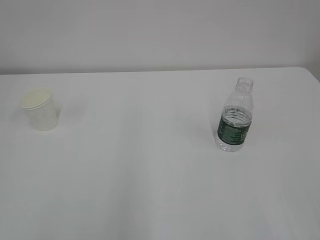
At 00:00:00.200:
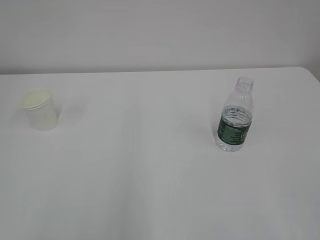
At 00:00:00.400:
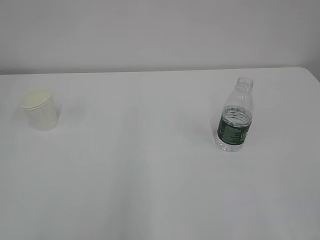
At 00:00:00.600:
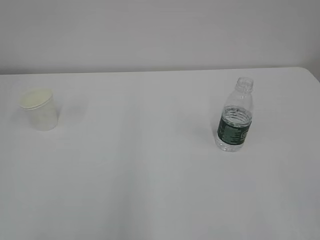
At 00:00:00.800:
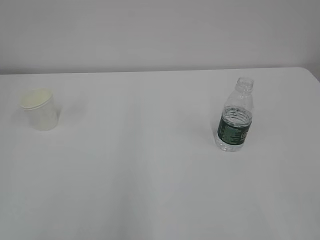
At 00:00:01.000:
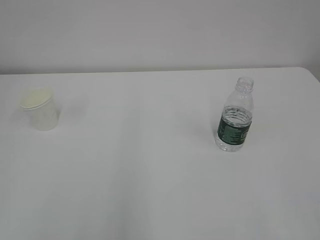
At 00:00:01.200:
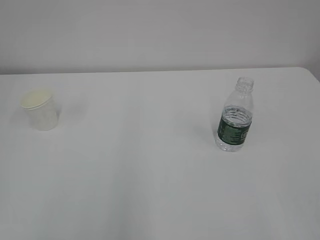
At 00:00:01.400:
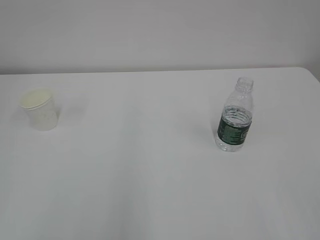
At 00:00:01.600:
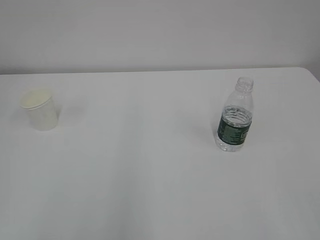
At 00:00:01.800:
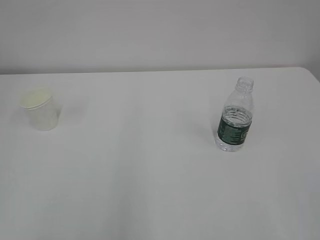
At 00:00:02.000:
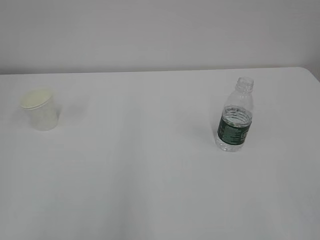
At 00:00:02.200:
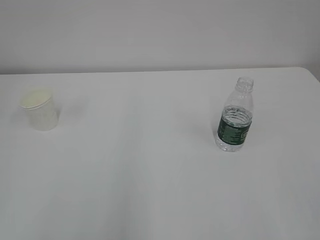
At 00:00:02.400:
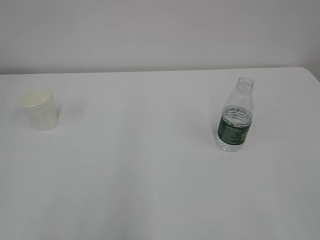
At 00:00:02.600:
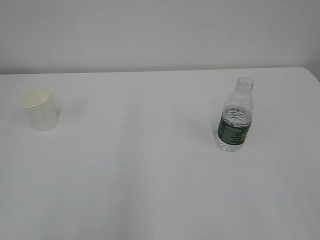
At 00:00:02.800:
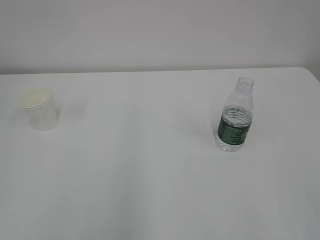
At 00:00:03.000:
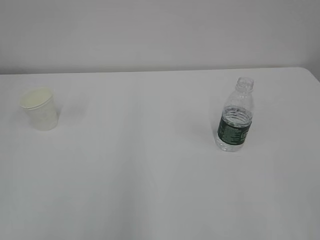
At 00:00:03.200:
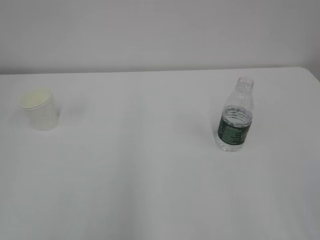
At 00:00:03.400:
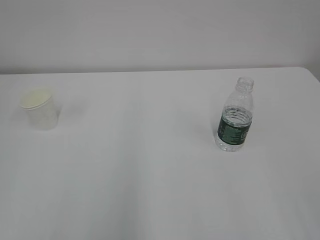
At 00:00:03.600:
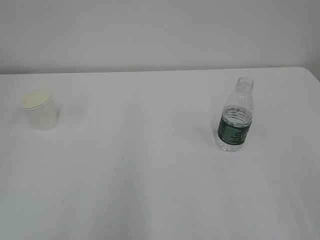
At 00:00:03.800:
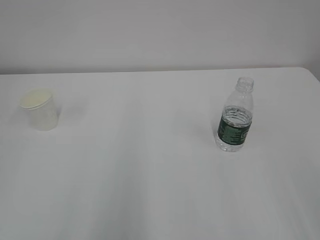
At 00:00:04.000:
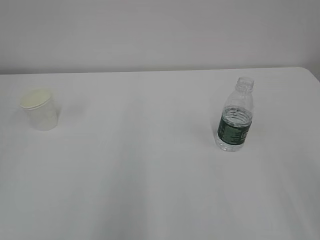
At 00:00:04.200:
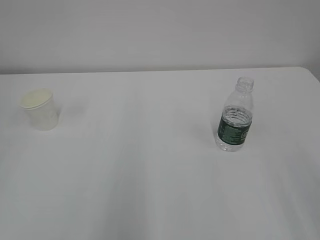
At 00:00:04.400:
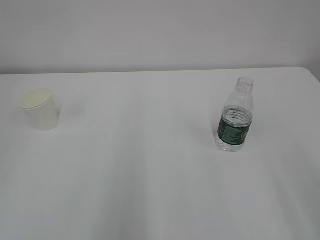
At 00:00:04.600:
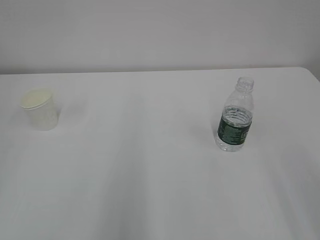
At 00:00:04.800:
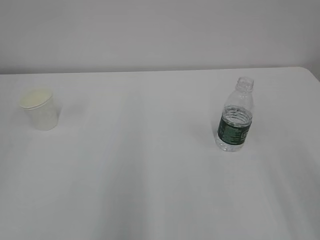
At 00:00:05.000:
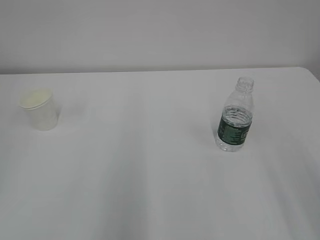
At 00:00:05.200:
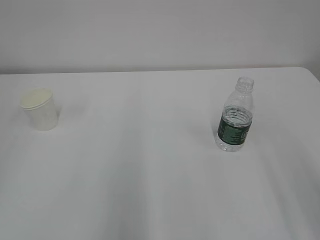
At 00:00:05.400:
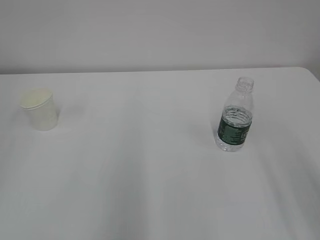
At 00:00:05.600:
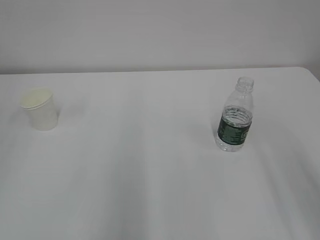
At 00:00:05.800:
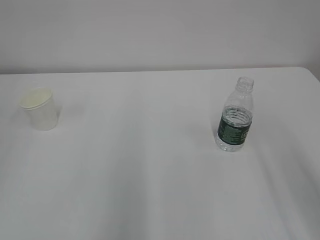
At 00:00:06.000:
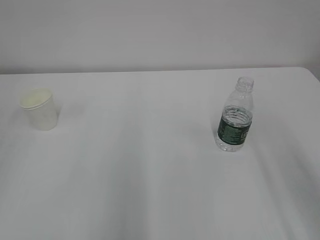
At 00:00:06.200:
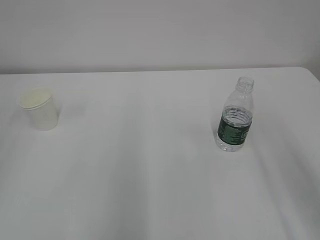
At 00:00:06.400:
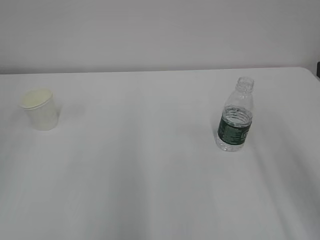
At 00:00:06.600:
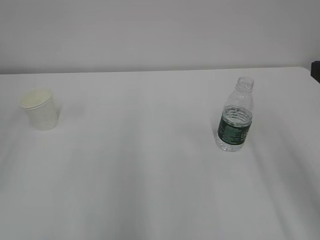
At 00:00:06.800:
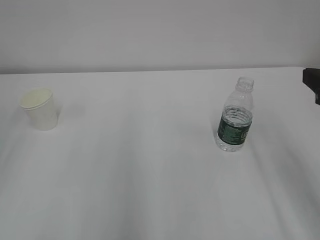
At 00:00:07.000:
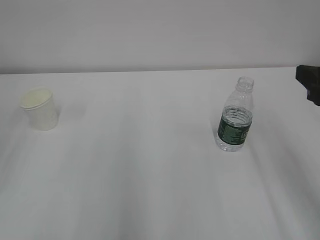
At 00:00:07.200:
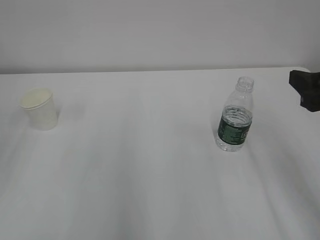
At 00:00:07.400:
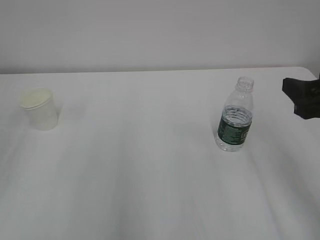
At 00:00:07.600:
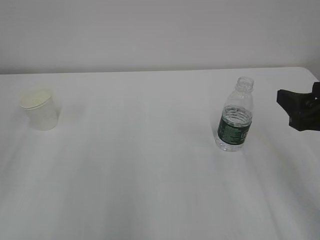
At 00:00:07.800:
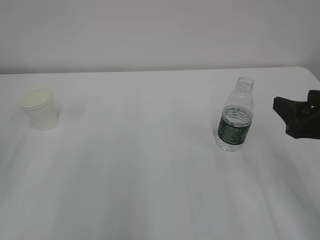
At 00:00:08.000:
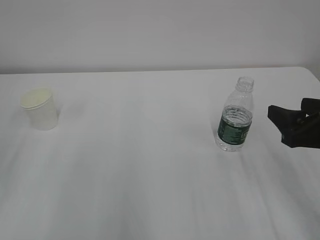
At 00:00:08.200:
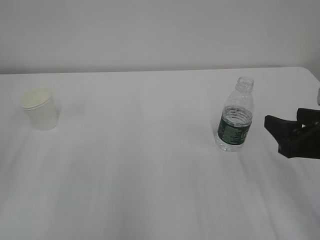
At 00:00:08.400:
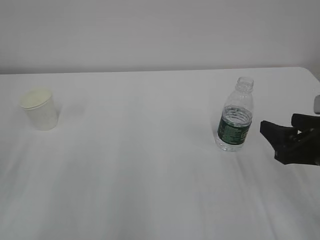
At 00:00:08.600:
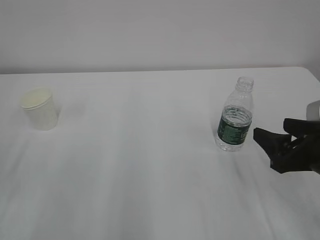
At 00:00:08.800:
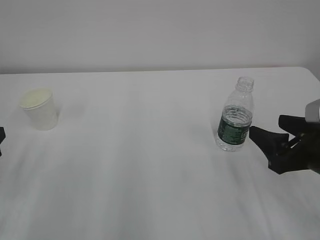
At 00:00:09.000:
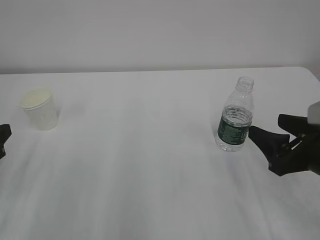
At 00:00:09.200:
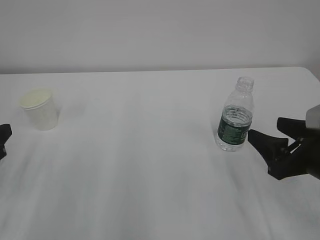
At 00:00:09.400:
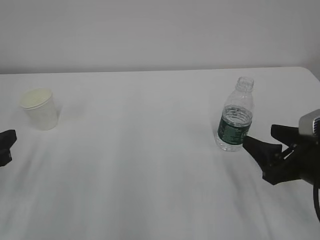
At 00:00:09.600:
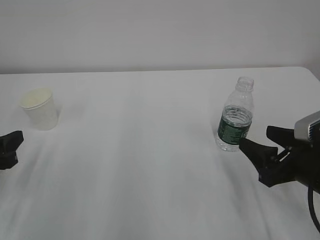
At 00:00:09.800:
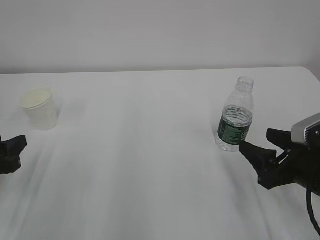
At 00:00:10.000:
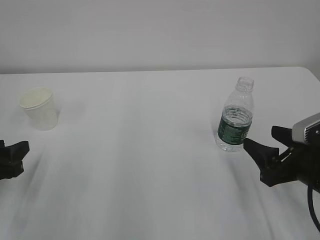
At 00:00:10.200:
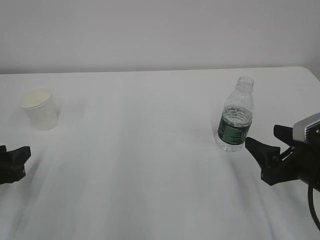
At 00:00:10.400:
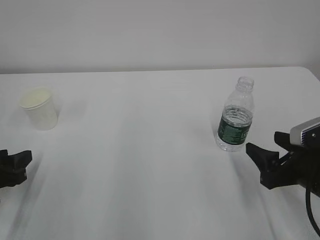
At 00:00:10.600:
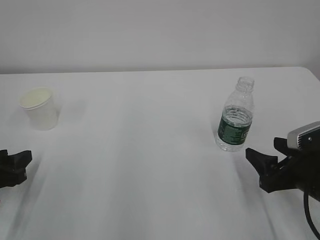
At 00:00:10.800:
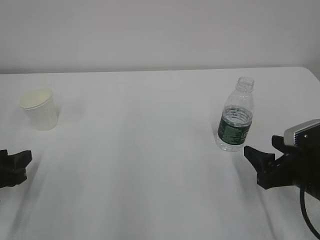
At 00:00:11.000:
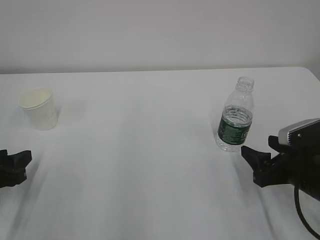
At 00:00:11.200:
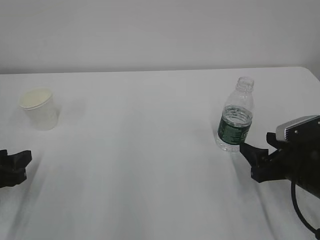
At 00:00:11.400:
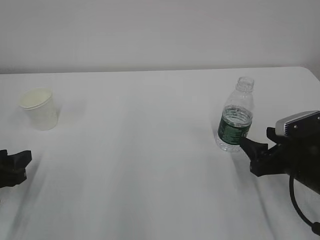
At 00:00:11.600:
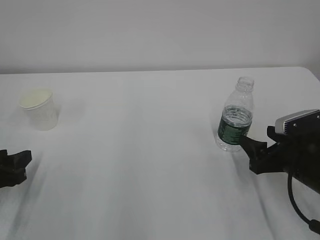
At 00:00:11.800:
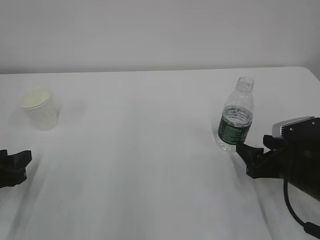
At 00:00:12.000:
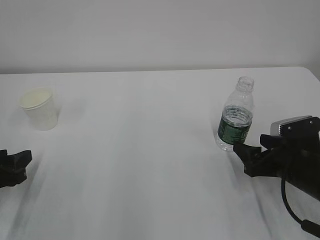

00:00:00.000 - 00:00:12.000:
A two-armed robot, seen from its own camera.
00:00:06.000 - 00:00:07.600: The right gripper heads downward and forward, covering about 10 cm.
00:00:07.600 - 00:00:09.000: The right gripper travels downward by some 5 cm.
00:00:09.000 - 00:00:10.400: The left gripper is displaced downward by roughly 5 cm.
00:00:10.400 - 00:00:12.000: The right gripper moves roughly 5 cm.

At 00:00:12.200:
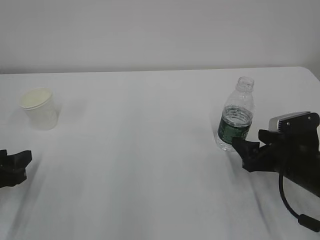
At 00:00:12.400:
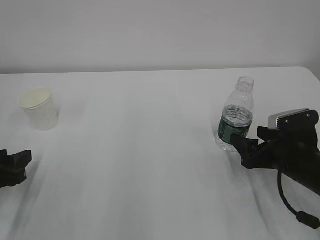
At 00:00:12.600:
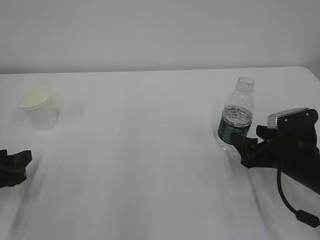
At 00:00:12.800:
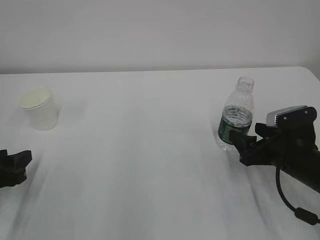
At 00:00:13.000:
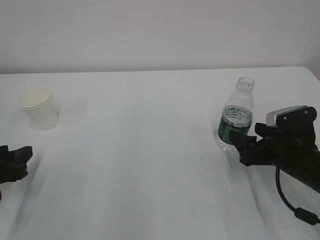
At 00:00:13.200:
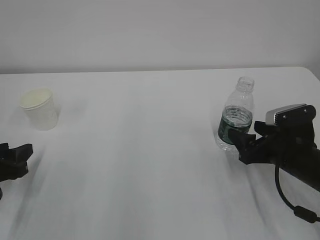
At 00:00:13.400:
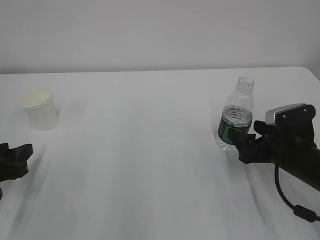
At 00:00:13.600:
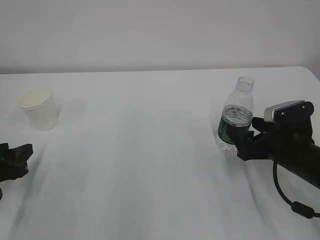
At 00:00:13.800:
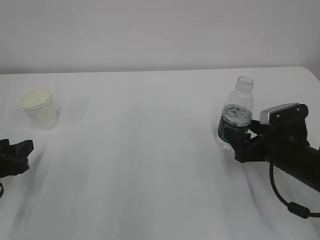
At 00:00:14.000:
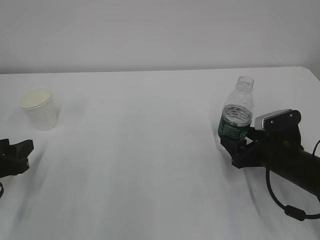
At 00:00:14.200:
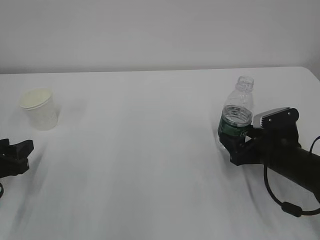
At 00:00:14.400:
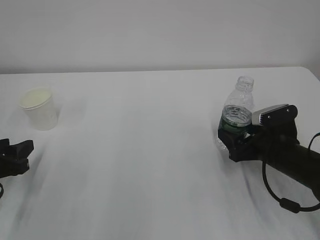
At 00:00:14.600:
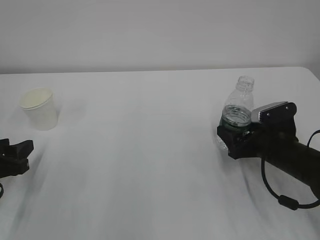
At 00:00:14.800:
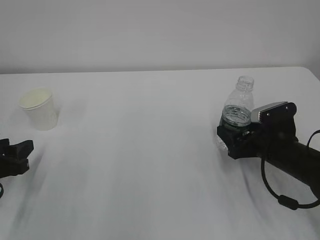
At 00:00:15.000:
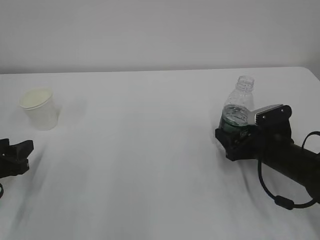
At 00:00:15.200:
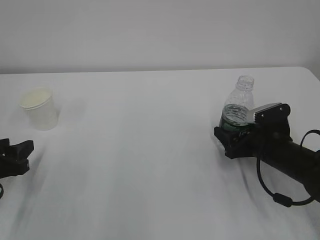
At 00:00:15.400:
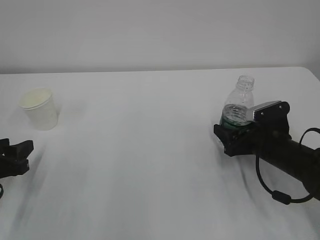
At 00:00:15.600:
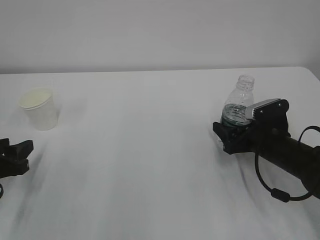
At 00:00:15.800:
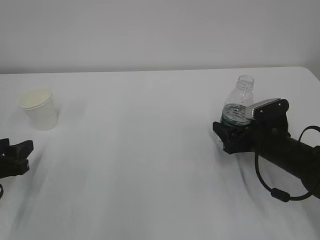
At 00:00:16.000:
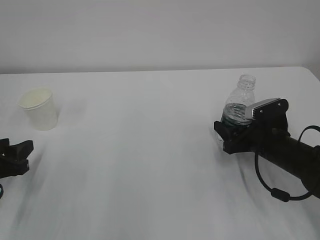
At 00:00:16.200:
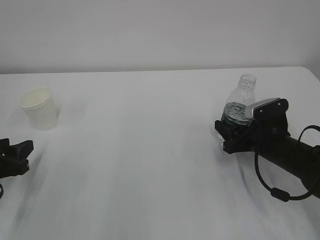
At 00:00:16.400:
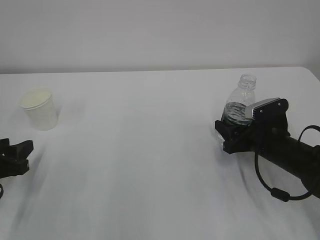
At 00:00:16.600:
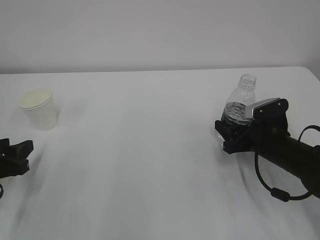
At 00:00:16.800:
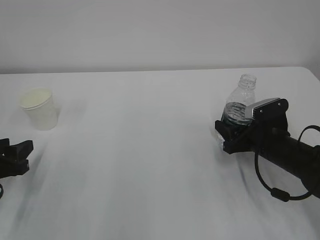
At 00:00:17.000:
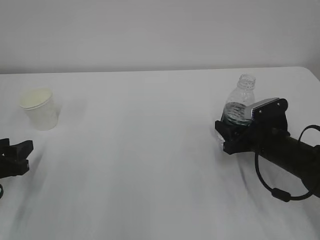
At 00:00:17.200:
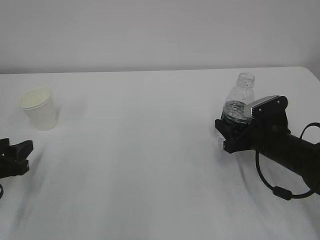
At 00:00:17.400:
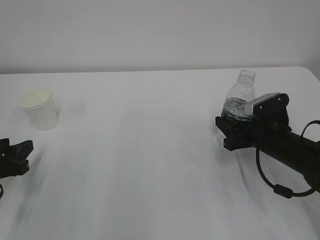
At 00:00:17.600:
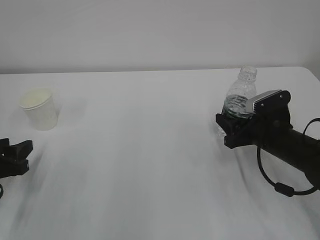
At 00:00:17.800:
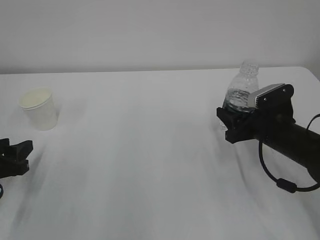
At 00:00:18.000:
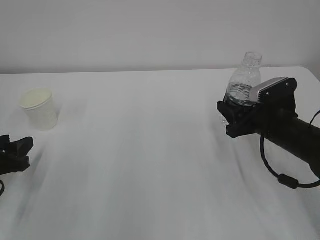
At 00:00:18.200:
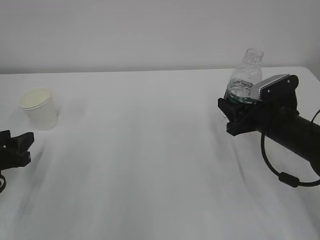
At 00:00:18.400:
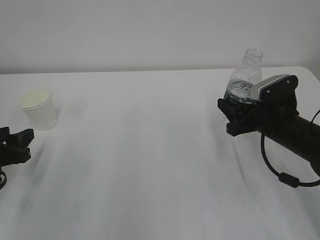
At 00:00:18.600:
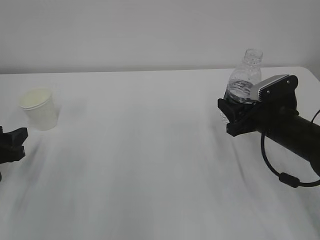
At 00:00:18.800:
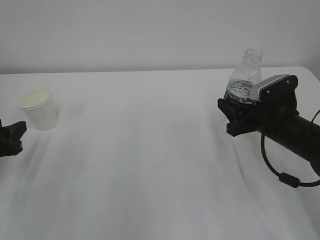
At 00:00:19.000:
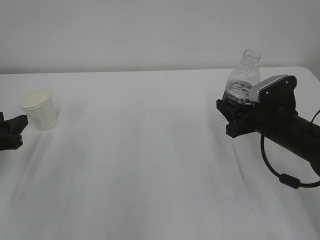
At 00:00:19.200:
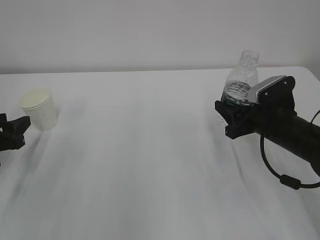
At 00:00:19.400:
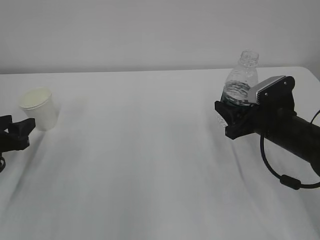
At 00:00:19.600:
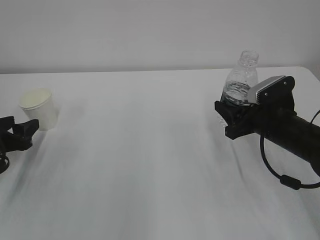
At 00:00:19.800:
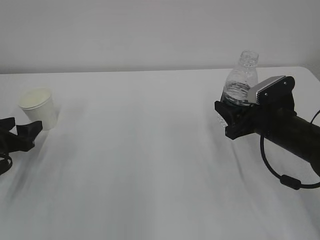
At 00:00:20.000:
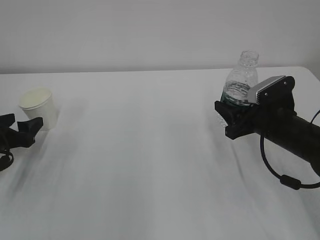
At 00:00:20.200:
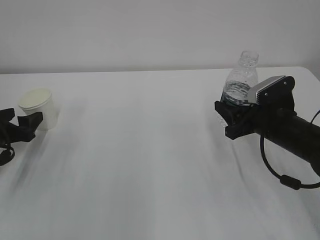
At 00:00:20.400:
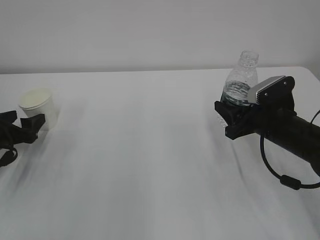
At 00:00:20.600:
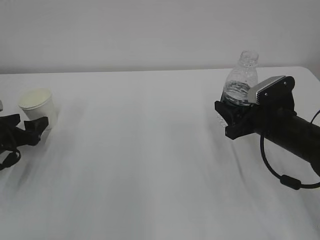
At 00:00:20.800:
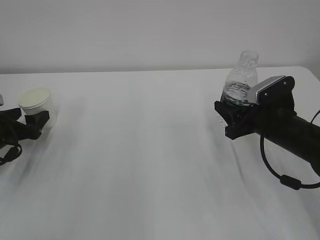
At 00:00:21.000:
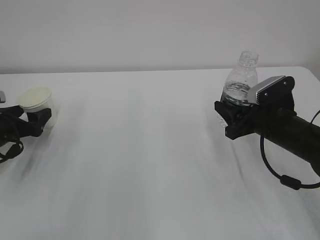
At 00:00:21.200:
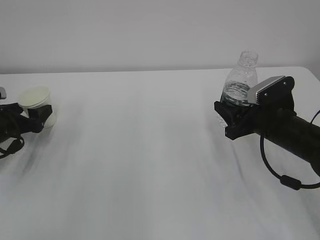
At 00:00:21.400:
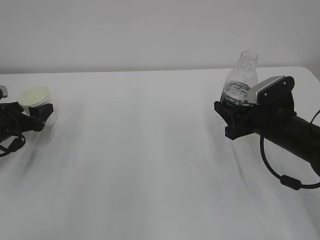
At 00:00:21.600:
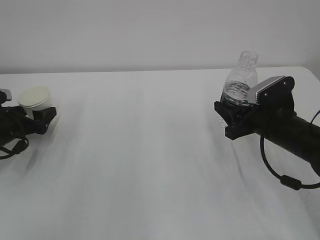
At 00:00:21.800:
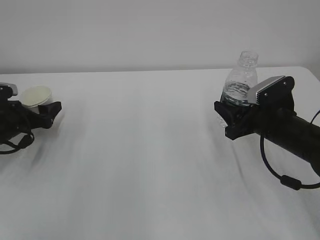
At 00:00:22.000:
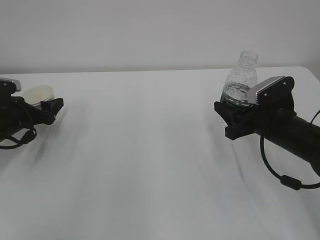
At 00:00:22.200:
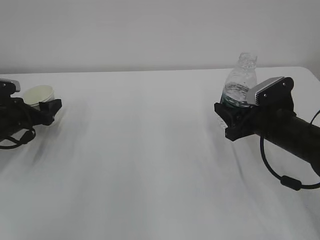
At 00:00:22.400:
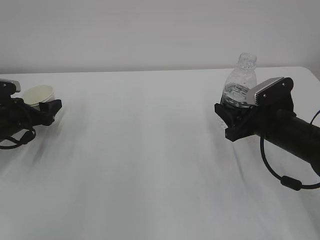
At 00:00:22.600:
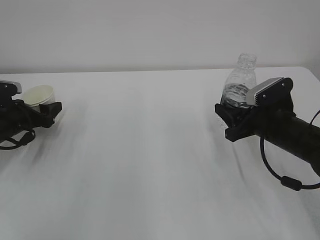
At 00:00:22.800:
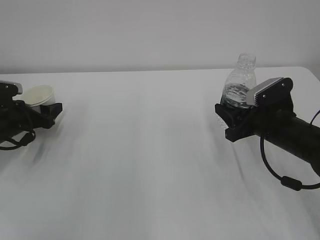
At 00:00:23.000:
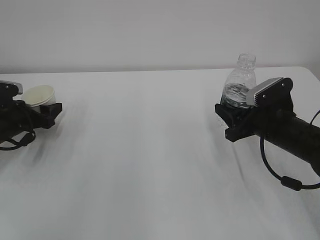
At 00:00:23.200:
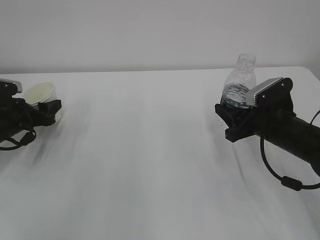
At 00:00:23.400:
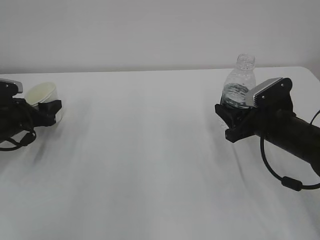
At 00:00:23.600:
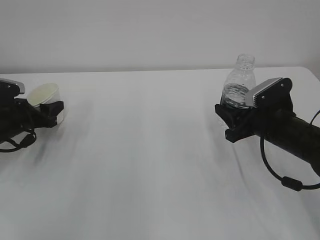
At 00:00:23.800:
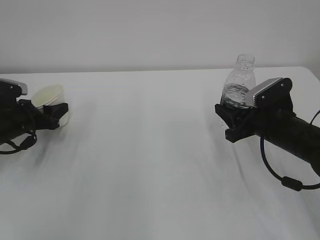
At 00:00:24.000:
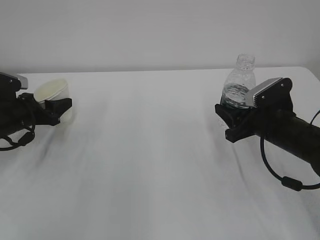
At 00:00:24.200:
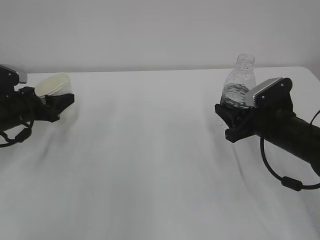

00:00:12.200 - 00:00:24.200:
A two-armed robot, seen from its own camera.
00:00:12.200 - 00:00:15.200: The grippers move only a little.
00:00:15.200 - 00:00:16.600: The right gripper closes its fingers.
00:00:16.600 - 00:00:18.200: The right gripper moves upward, approximately 5 cm.
00:00:18.200 - 00:00:19.800: The left gripper is displaced forward by about 5 cm, and opens.
00:00:19.800 - 00:00:21.200: The left gripper shifts some 5 cm forward.
00:00:21.200 - 00:00:22.600: The grippers stay close to where they were, moving slightly.
00:00:22.600 - 00:00:24.200: The left gripper closes up.
